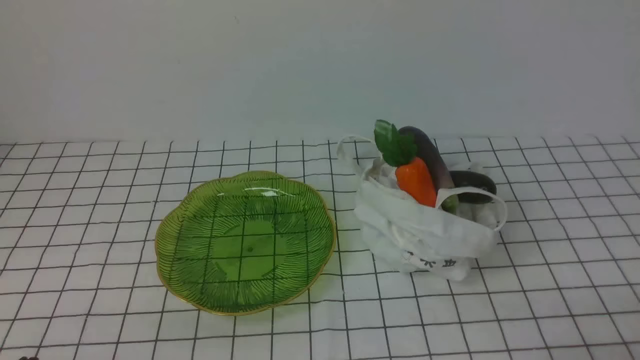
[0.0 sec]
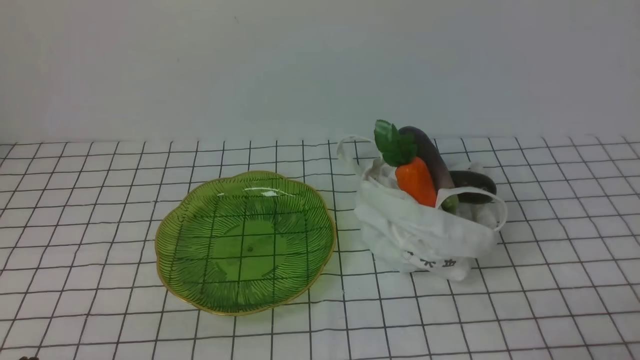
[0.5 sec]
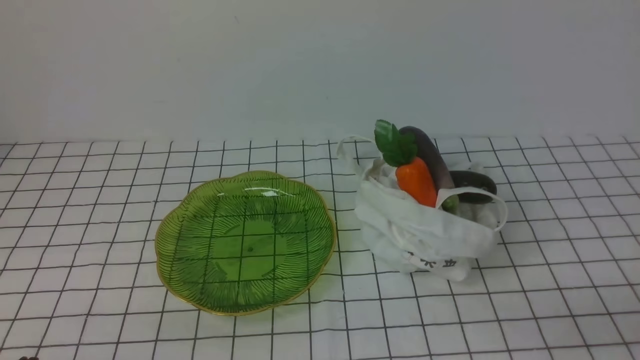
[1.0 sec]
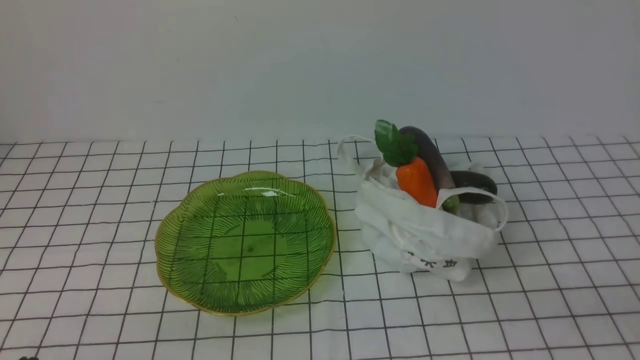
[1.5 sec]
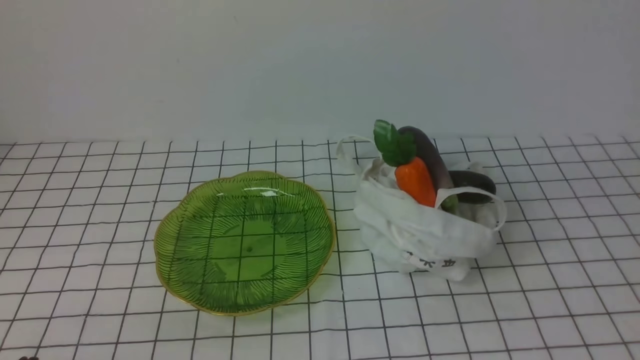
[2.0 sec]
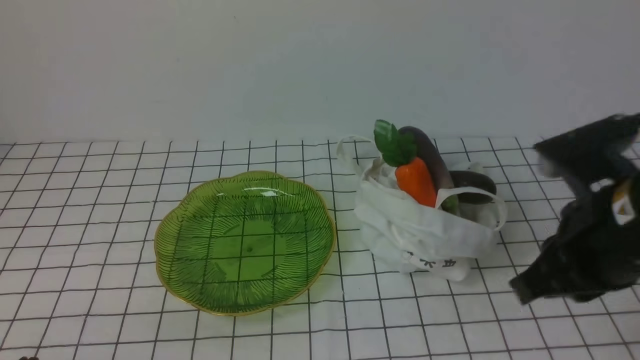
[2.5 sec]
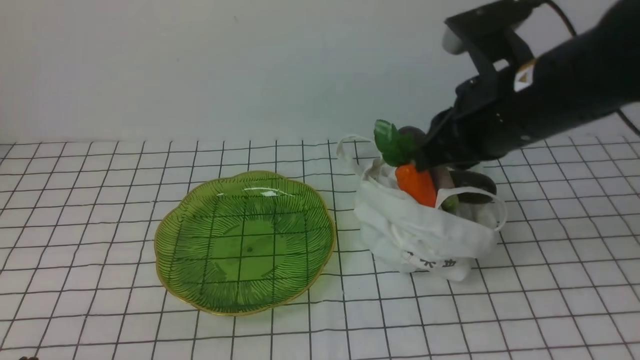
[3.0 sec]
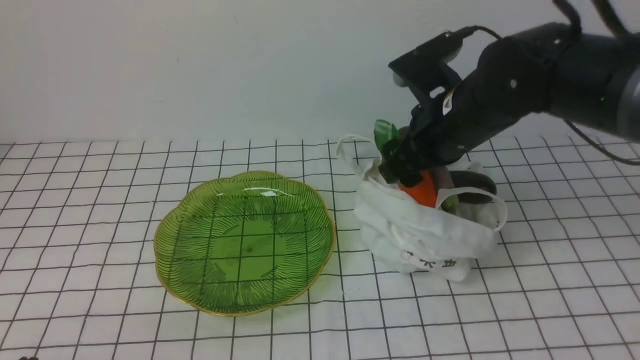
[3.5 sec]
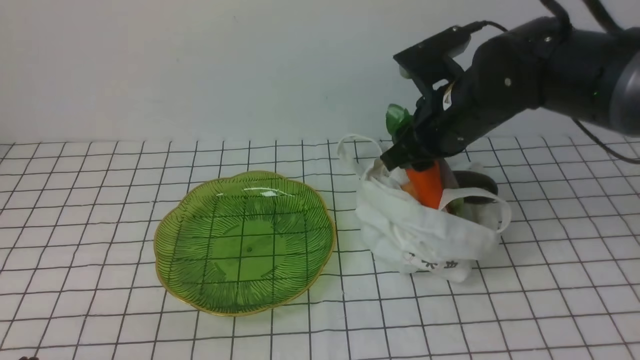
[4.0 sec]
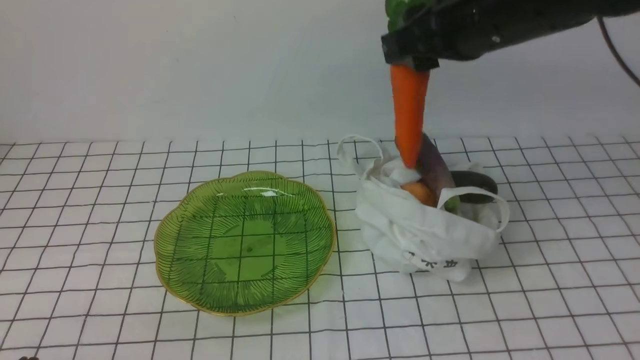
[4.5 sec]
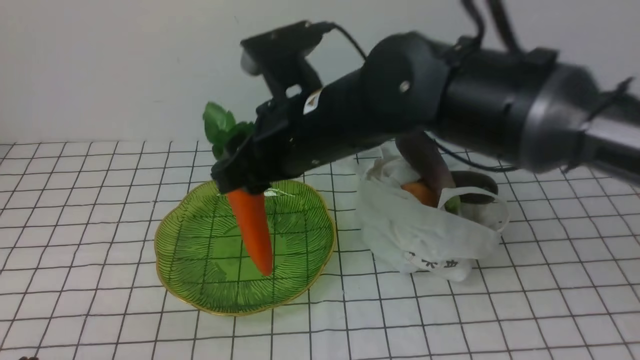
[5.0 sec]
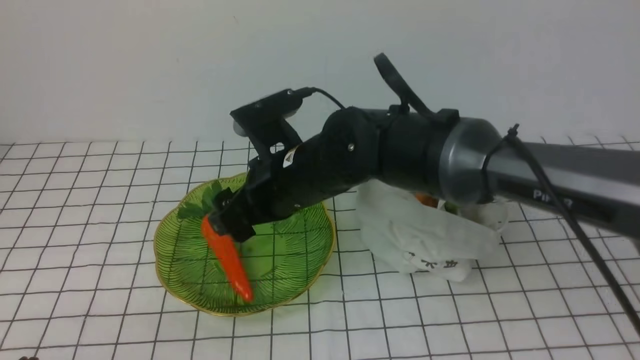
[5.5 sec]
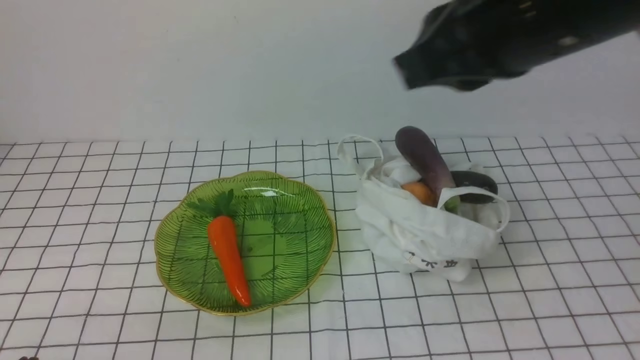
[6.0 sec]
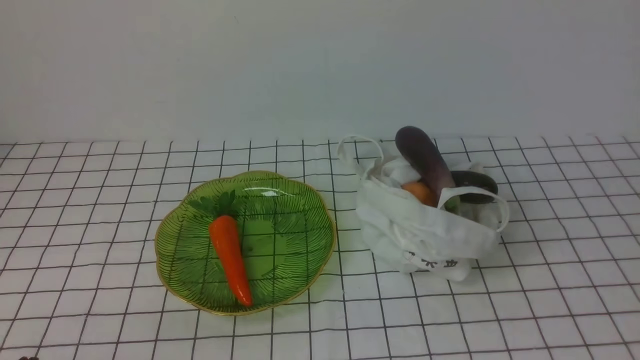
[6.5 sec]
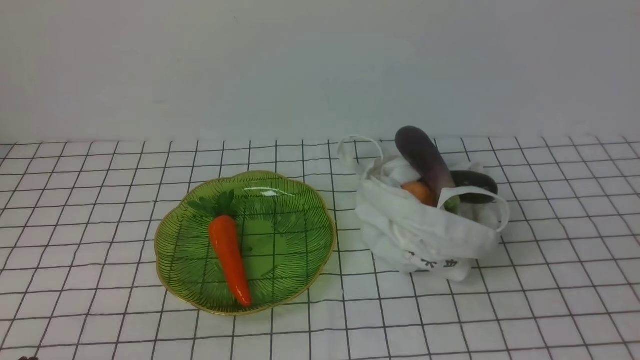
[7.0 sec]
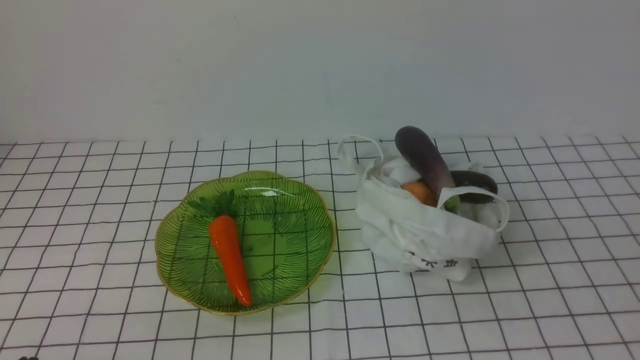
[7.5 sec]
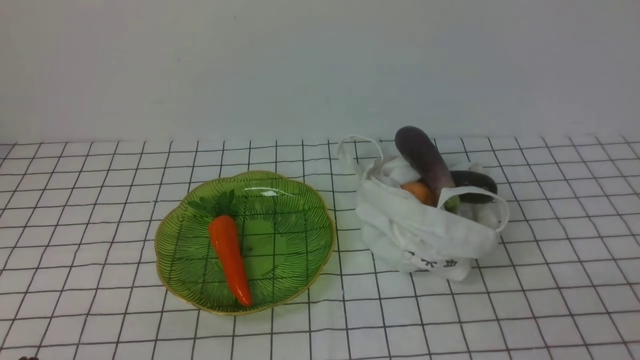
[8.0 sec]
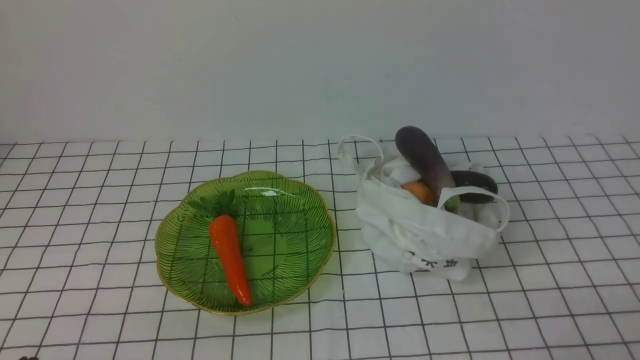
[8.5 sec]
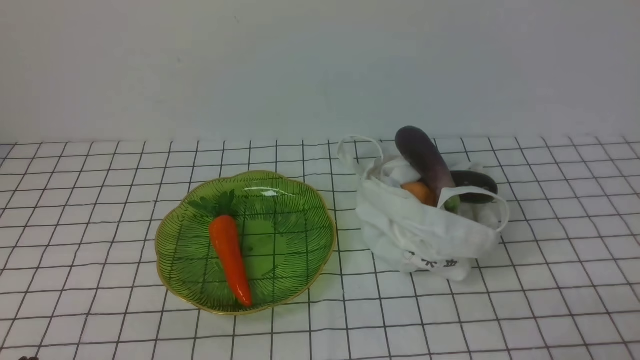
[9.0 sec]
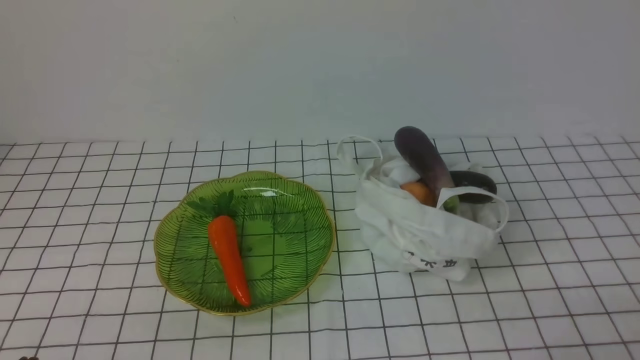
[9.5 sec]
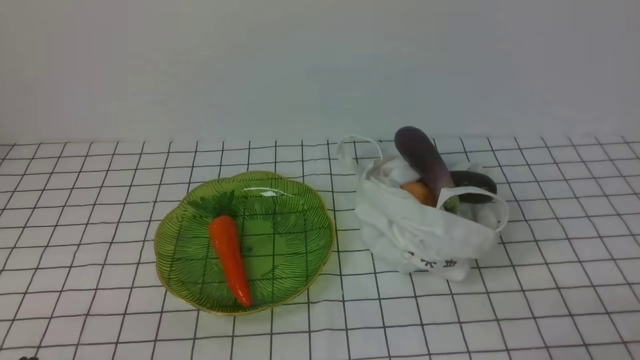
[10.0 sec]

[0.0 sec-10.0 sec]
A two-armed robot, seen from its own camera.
Task of the whole recording: take vegetables from bag on white checkered tablecloth place on plate.
Step, 0.0 sec to 3.5 sec: Grasp the carrot with right gripper.
Step, 4.0 sec to 5.5 sec: Place the carrot on the plate with right gripper.
2.0 sec to 4.0 sec: The right gripper travels forward and to the left by roughly 30 cm, and opens up.
4.0 sec to 6.0 sec: The right gripper swings up and down, roughly 20 cm each way, with 2 reversals, and closes up.
6.0 sec to 8.0 sec: The right gripper is displaced downward, backward and to the right by approximately 30 cm.

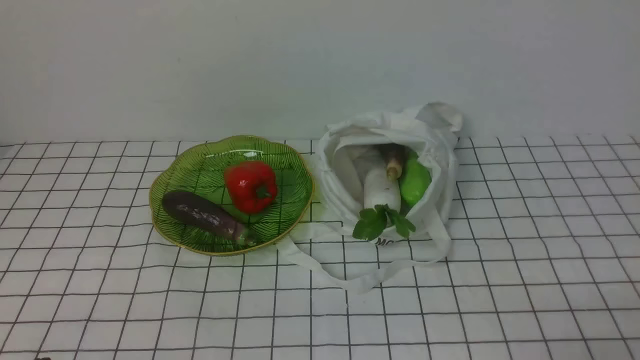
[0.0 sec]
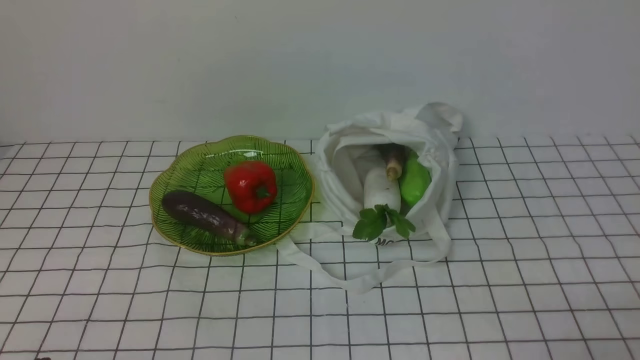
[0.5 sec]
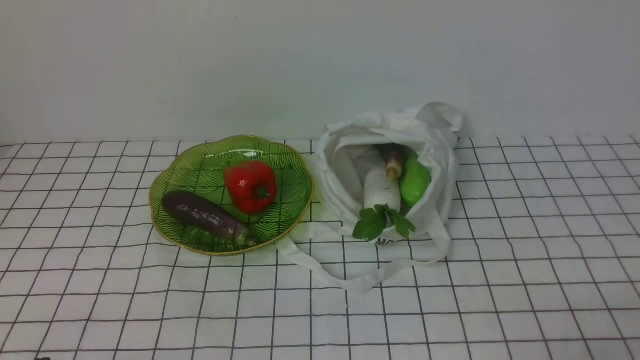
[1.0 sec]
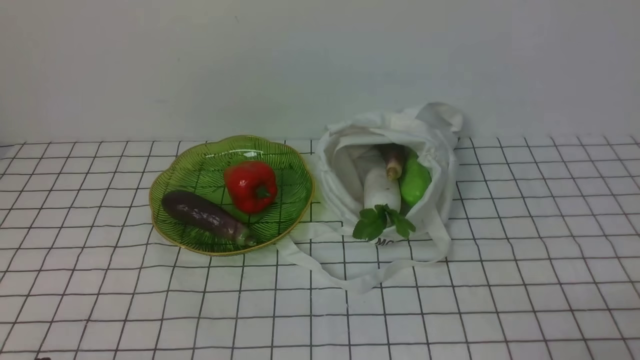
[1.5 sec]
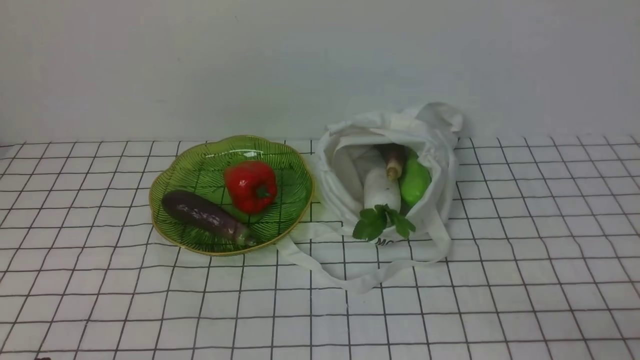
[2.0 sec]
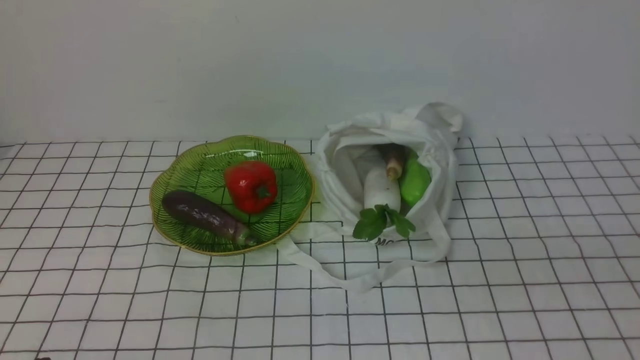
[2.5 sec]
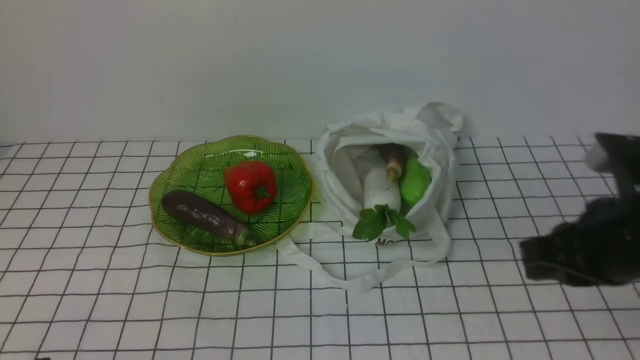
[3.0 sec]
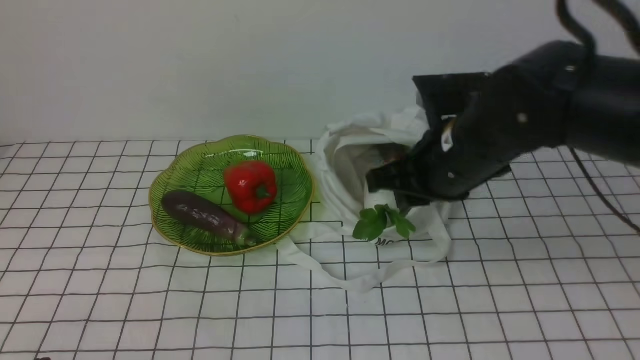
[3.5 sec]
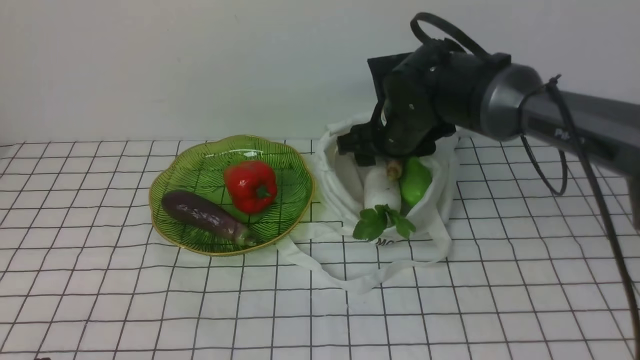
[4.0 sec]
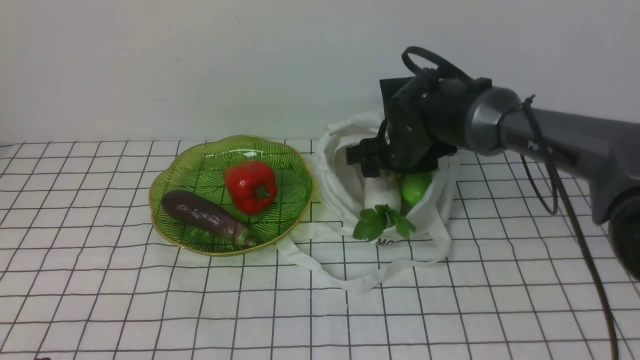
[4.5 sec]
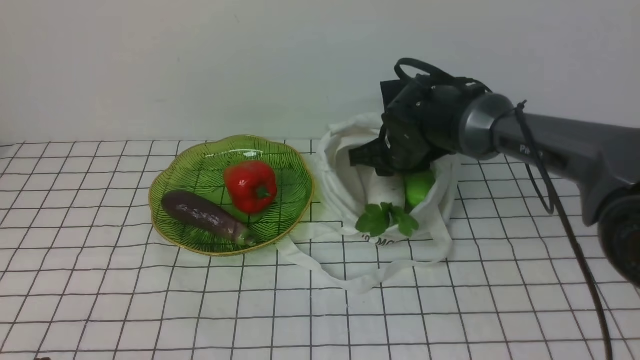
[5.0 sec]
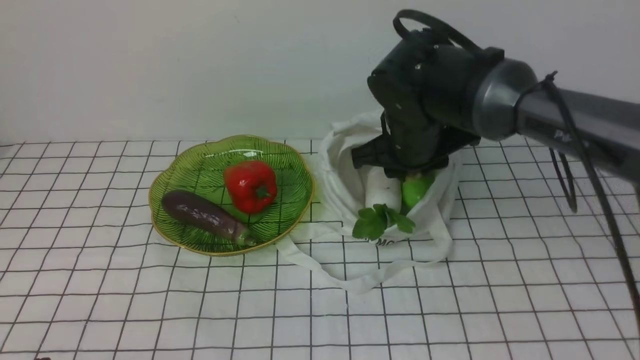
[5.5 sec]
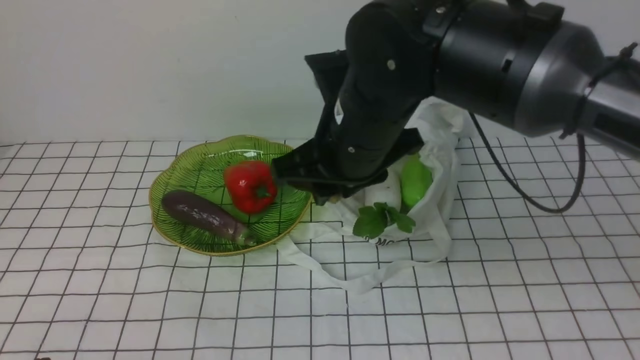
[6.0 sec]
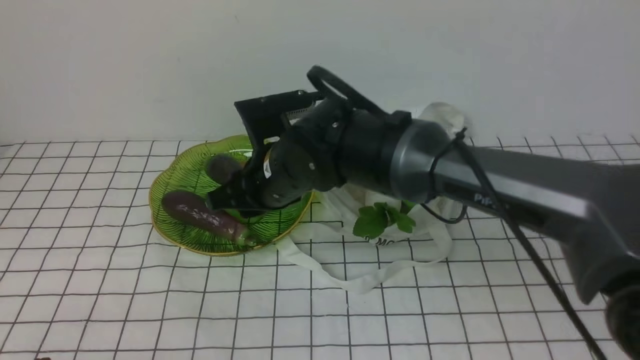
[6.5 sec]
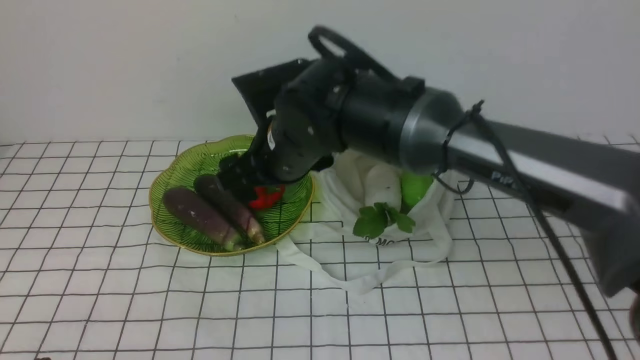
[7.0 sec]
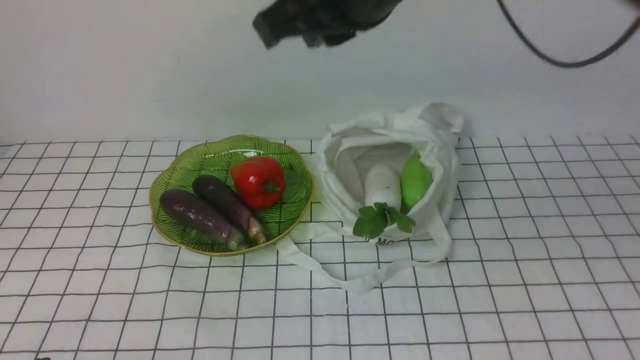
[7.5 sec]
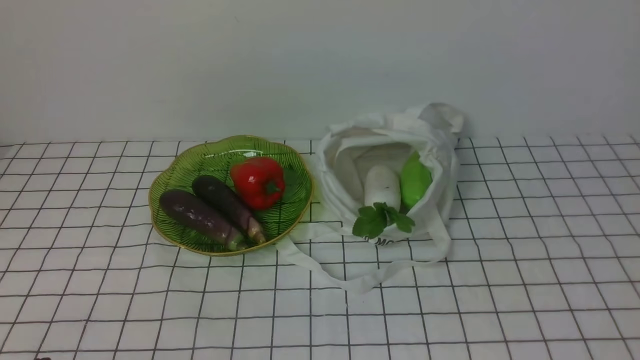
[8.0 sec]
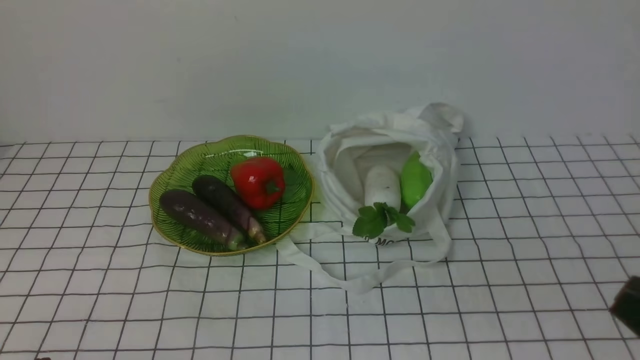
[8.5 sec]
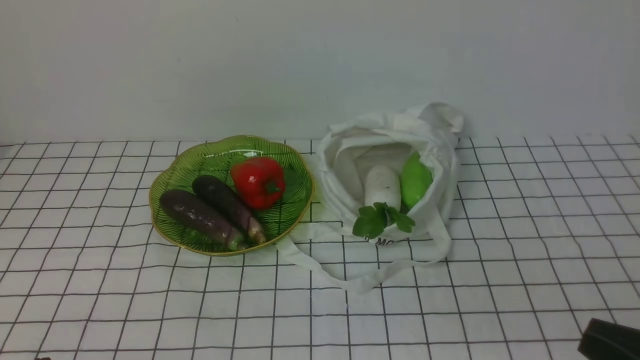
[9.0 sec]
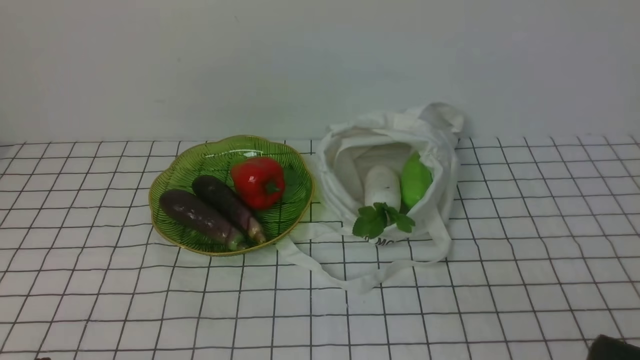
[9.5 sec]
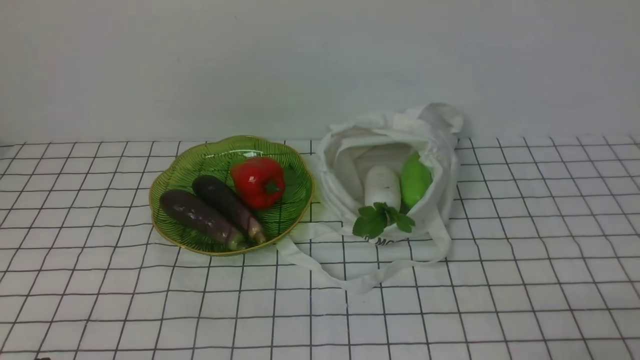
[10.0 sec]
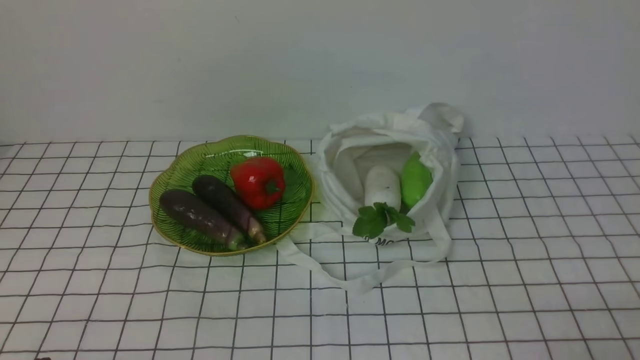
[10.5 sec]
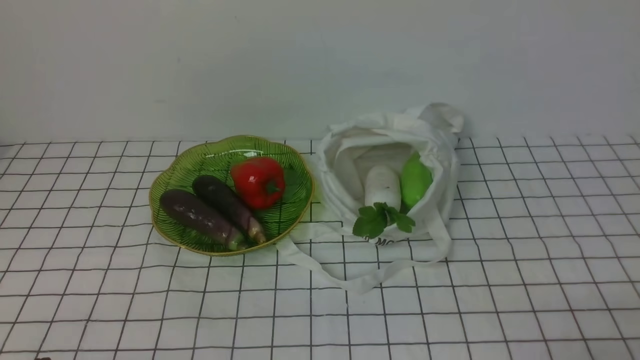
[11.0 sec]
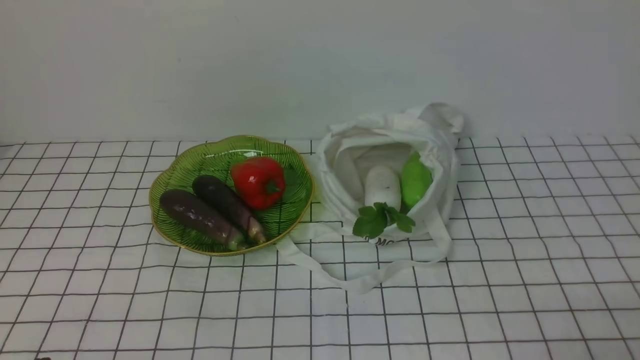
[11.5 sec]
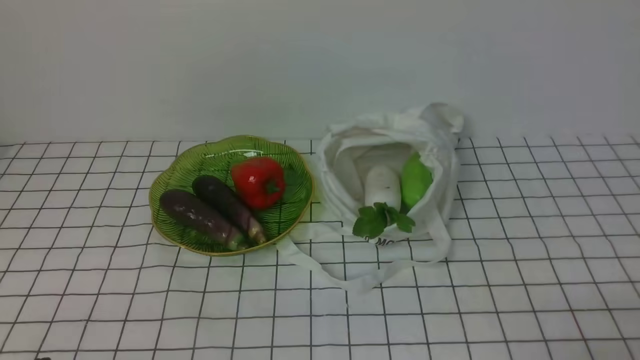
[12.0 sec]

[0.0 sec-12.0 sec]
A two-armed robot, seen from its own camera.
Task of the whole recording: take vegetables from bag on white checkered tablecloth place on plate.
Step, 0.0 sec to 4.5 sec: Grasp the eggplant with right gripper.
Step, 5.0 sec to 7.0 sec: Place the eggplant on the plate with right gripper.
2.0 sec to 4.0 sec: The right gripper is displaced forward and to the left by about 40 cm, and opens its fingers.
4.0 sec to 6.0 sec: The right gripper travels backward, upward and to the left by approximately 15 cm, and closes its fingers.
6.0 sec to 8.0 sec: The right gripper travels backward, to the right and upward by about 35 cm, and closes.
10.0 sec to 12.0 sec: The two grippers keep their place.
